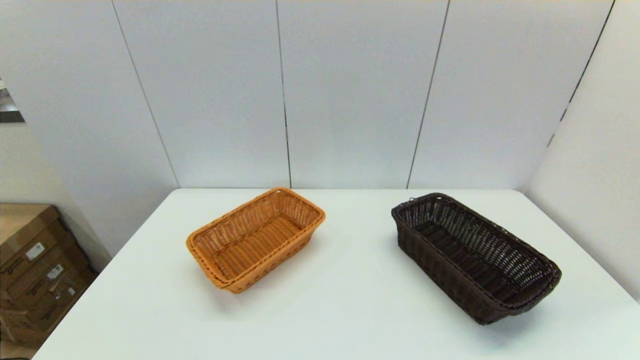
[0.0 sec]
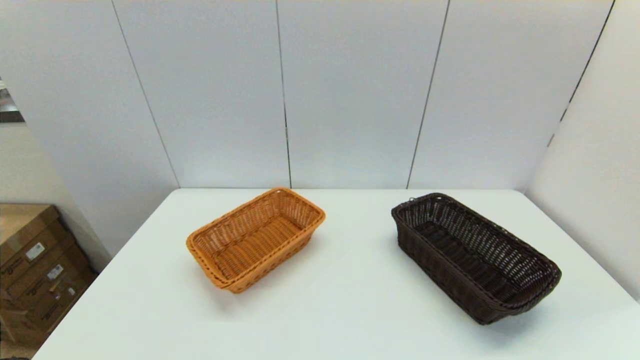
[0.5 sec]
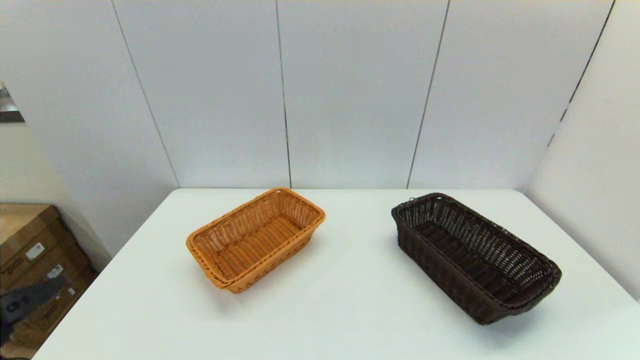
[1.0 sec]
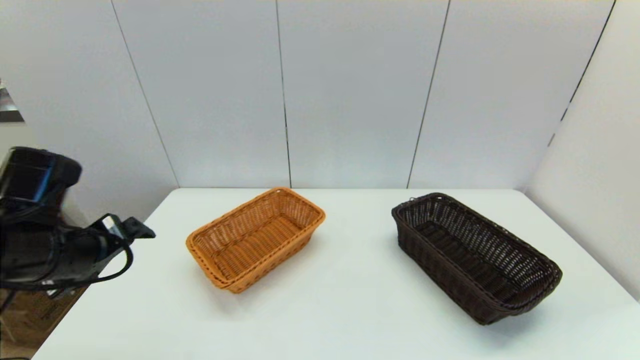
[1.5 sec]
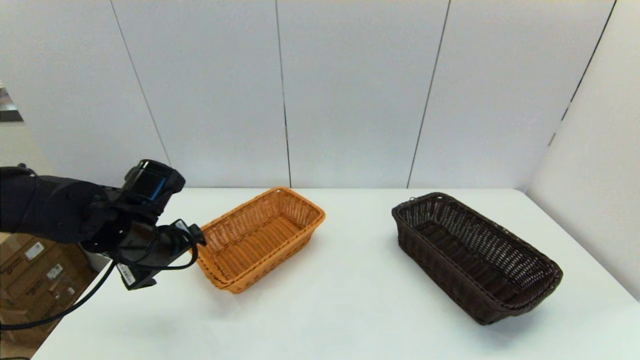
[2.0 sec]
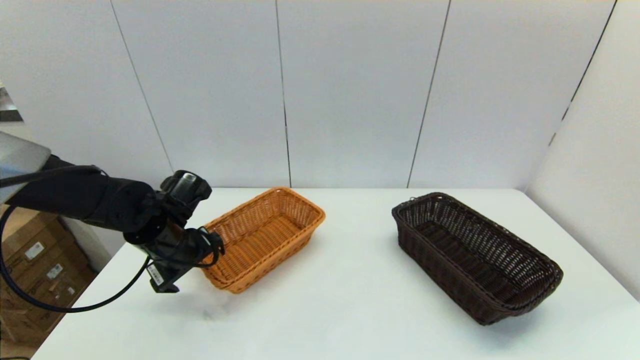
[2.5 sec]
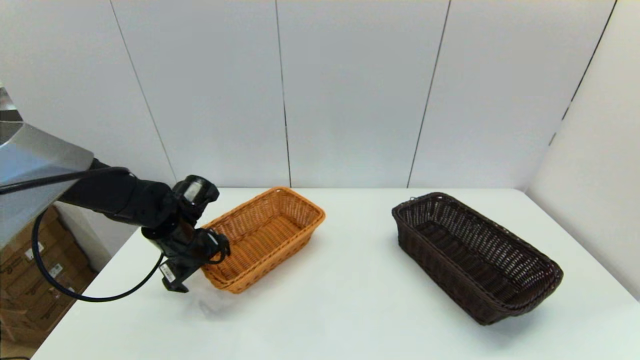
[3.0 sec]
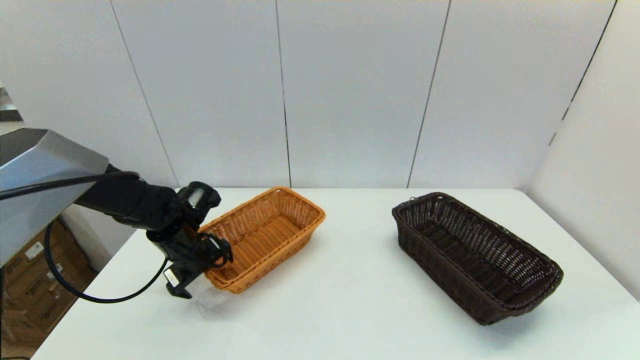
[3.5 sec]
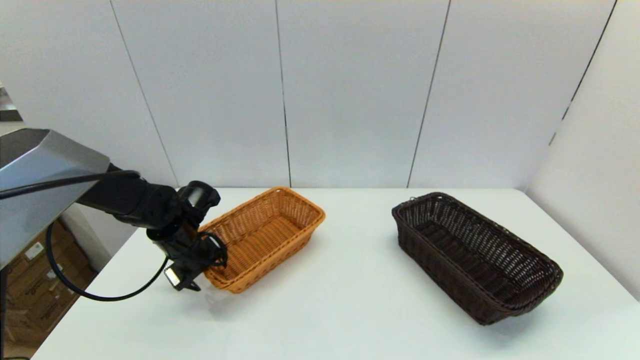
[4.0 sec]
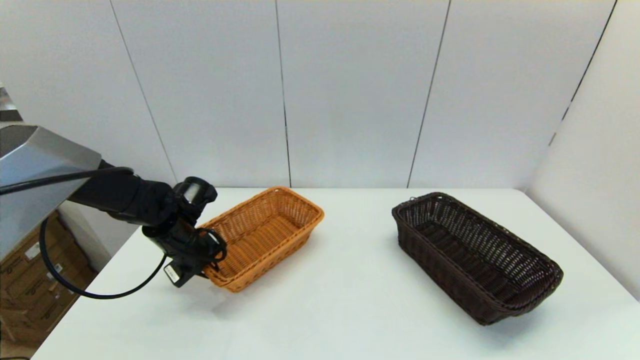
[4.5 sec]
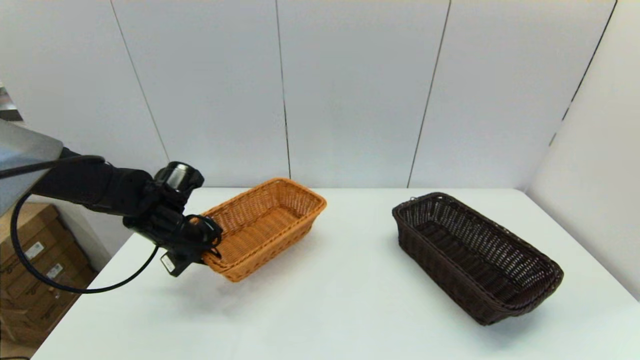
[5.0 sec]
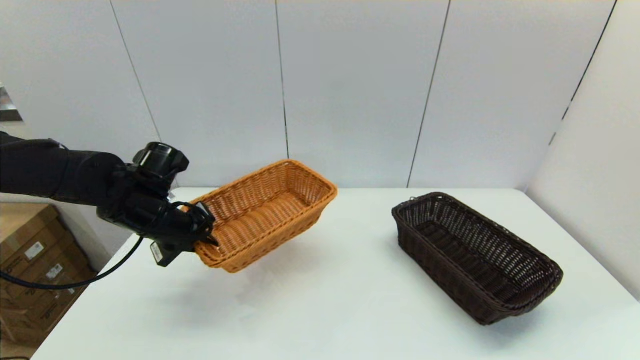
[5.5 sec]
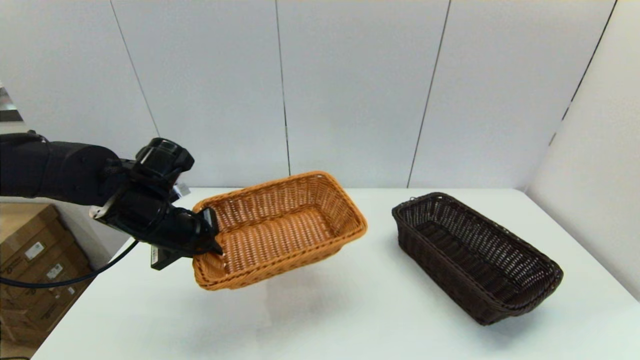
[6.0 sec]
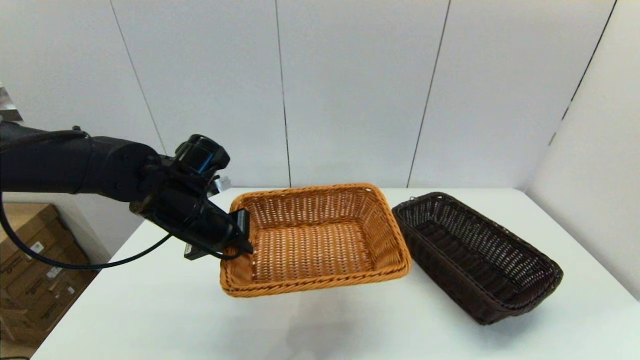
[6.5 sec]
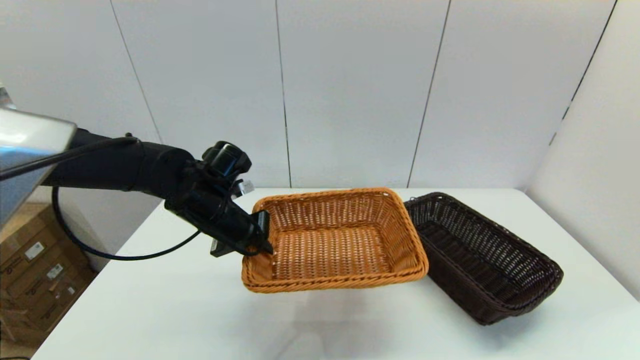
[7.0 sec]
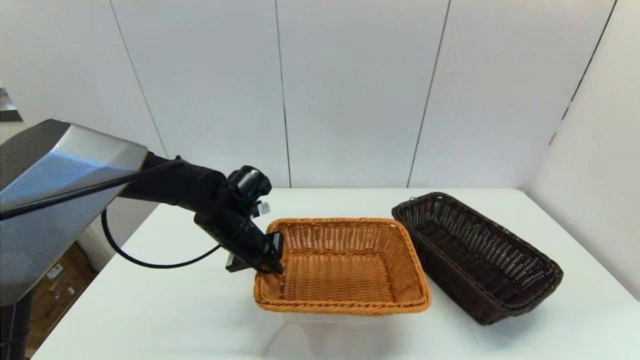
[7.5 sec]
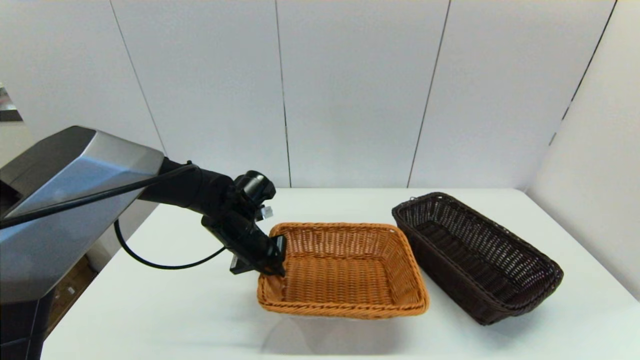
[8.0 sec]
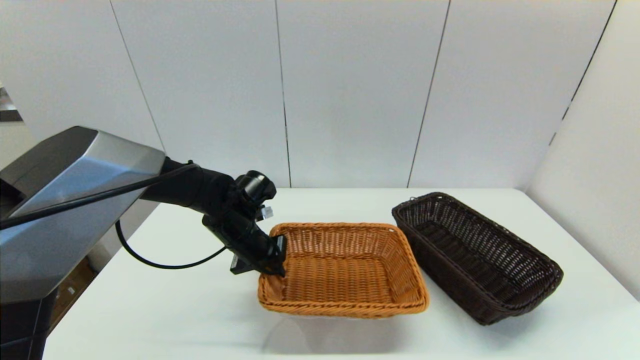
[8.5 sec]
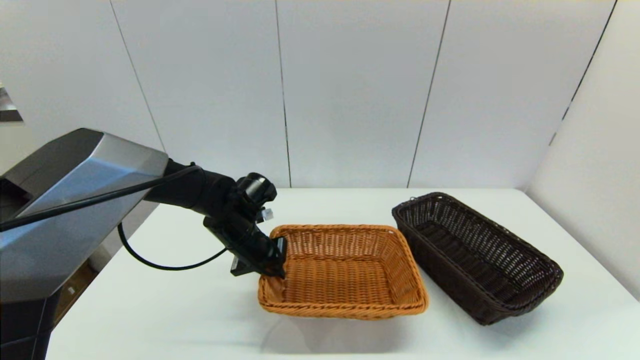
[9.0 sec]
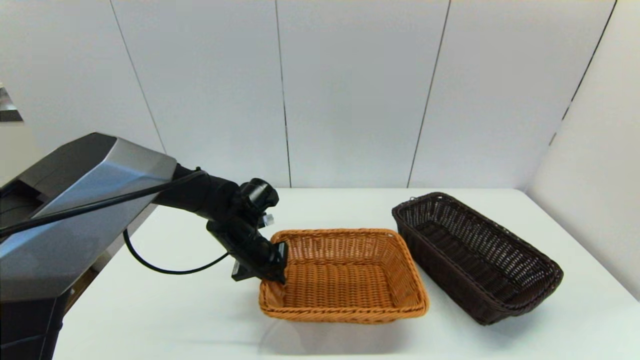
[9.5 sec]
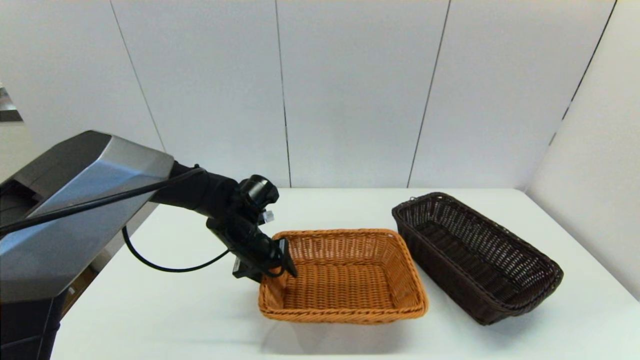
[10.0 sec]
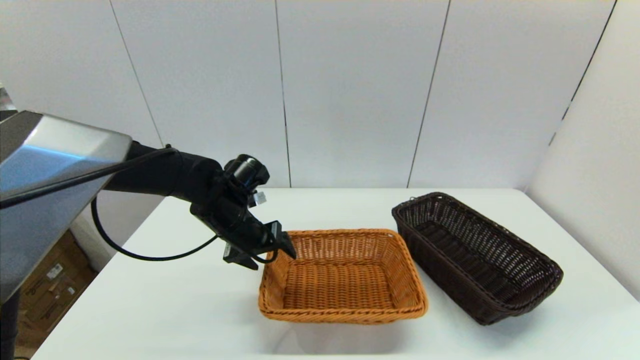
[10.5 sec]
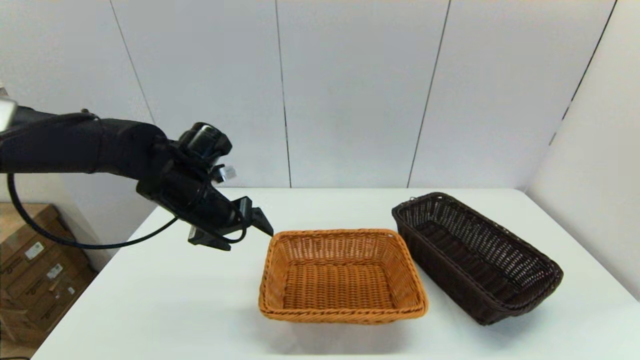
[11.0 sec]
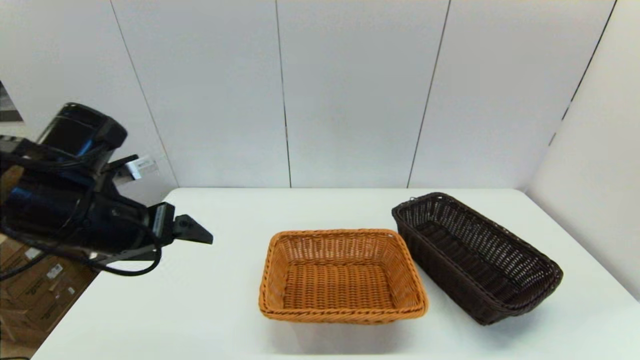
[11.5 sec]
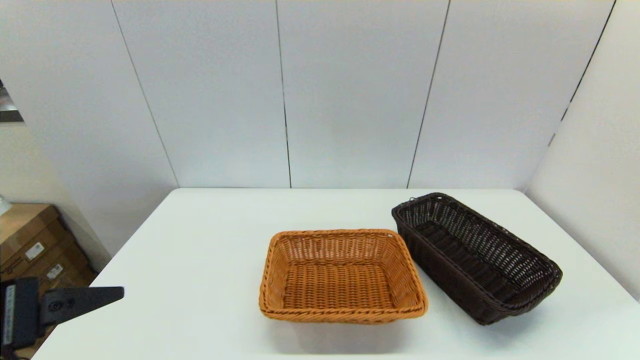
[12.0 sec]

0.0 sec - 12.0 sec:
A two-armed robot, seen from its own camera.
Task of the whole recording: stack a basket on top of another basket.
Step, 0.0 sec - 4.0 sec: Grasp the light basket with the left gripper.
Step, 4.5 sec - 10.5 sec: Place the light basket on the middle of the table with the left gripper.
0.0 sec - 2.0 sec: The left gripper shifts some 30 cm forward.
2.0 sec - 4.0 sec: The left gripper is displaced downward and forward by roughly 10 cm, and closes up.
4.0 sec - 6.0 sec: The left gripper travels upward and backward by about 10 cm, and closes up.
6.0 sec - 8.0 sec: The left gripper goes some 15 cm to the right, downward and forward.
8.0 sec - 10.0 sec: The left gripper opens.
10.0 sec - 12.0 sec: The left gripper shifts some 35 cm backward, upward and to the left, and opens up.

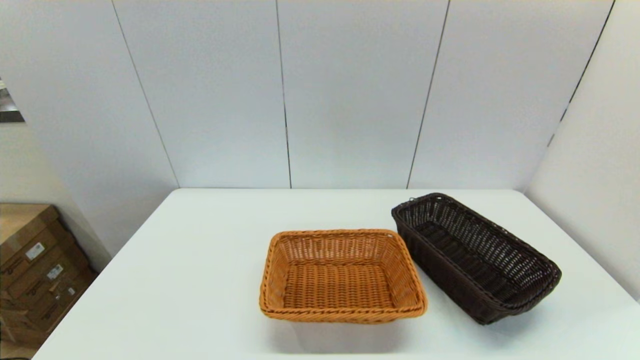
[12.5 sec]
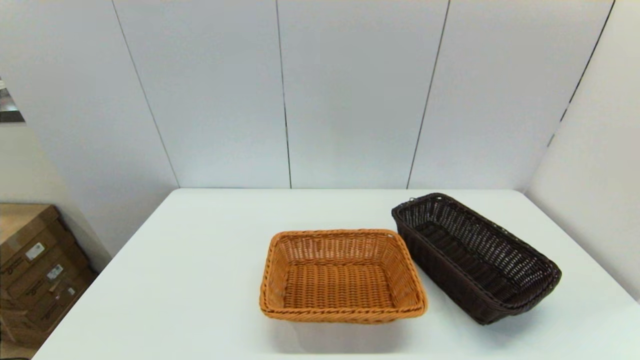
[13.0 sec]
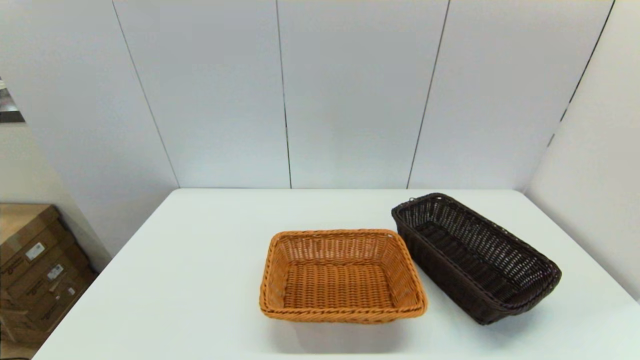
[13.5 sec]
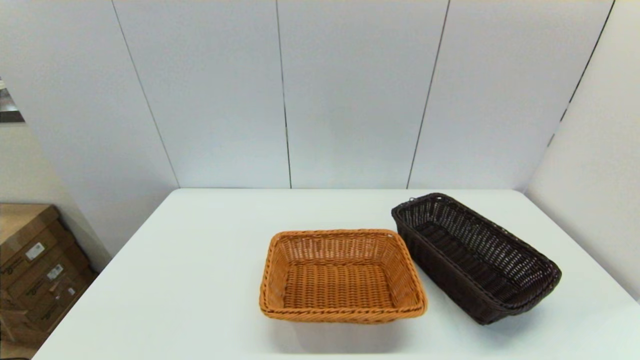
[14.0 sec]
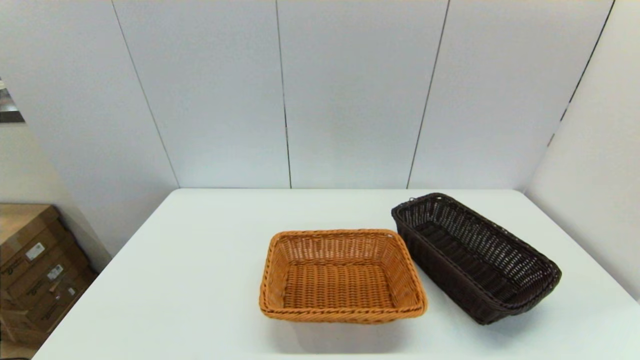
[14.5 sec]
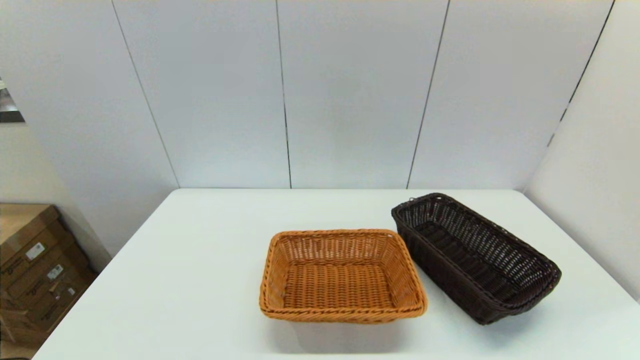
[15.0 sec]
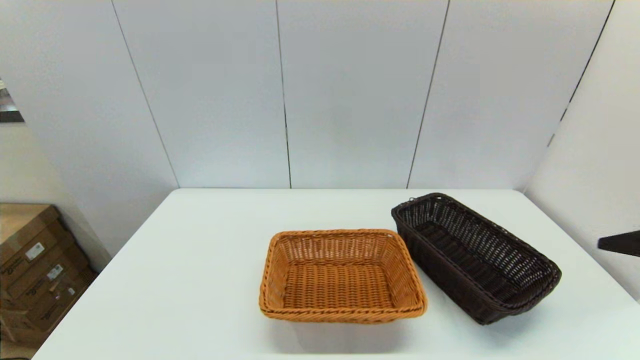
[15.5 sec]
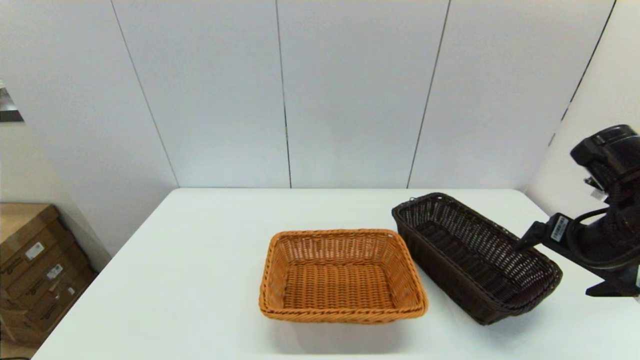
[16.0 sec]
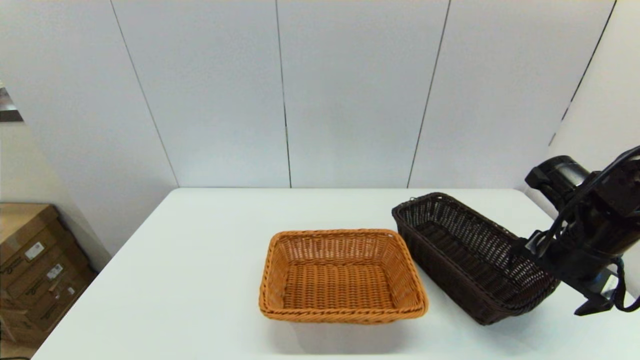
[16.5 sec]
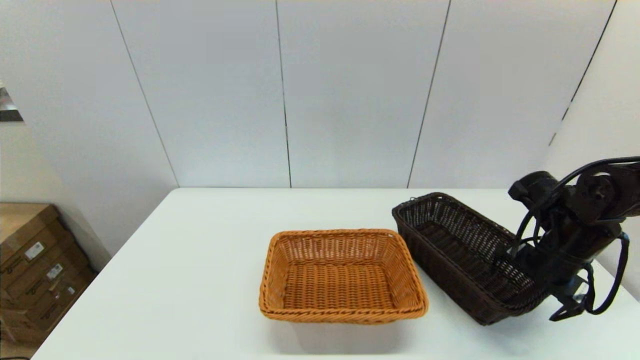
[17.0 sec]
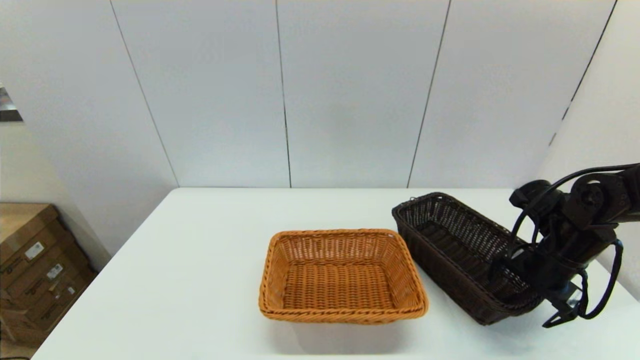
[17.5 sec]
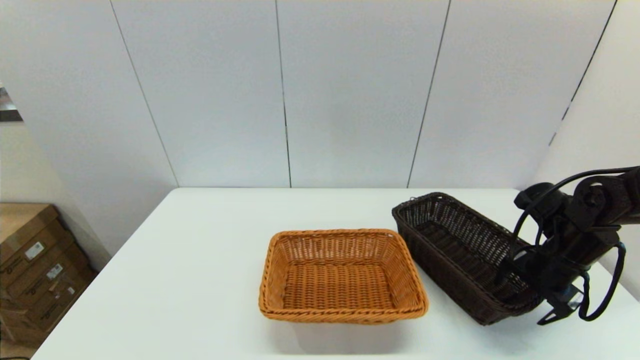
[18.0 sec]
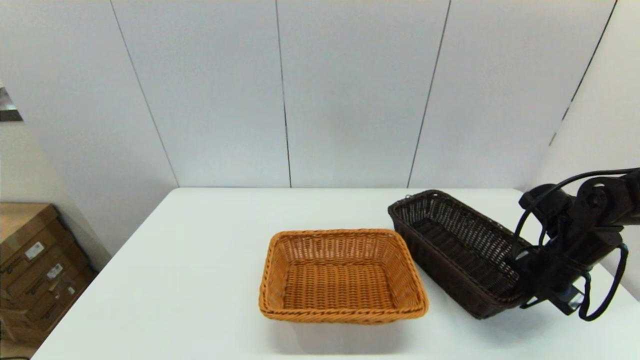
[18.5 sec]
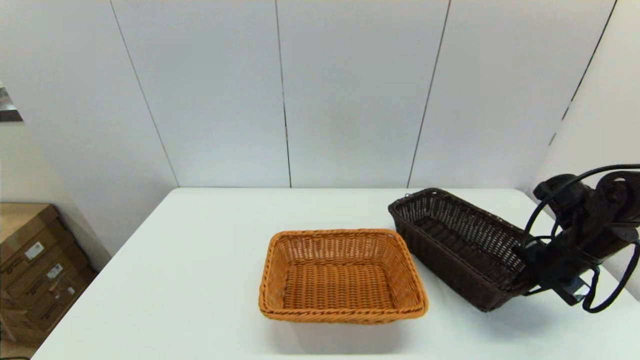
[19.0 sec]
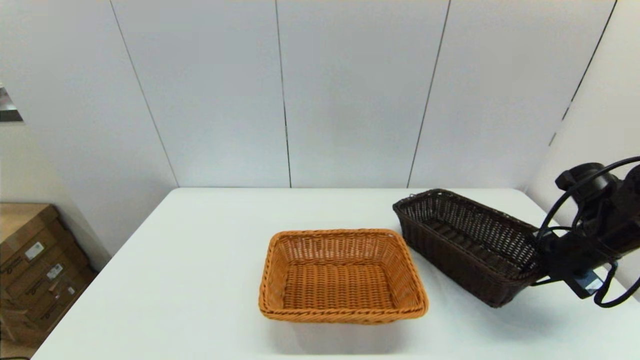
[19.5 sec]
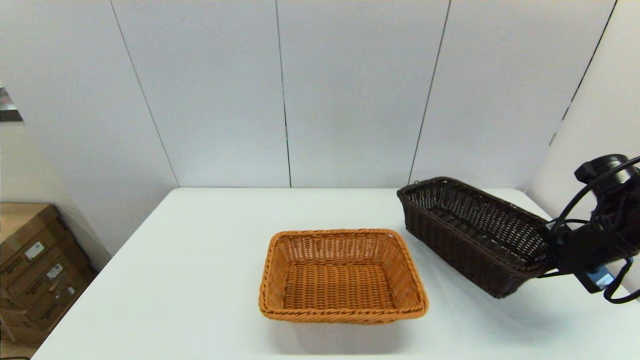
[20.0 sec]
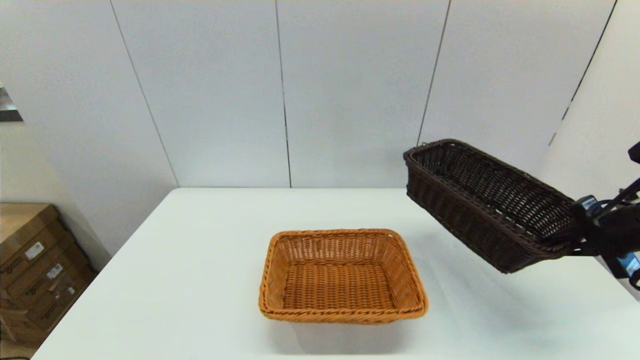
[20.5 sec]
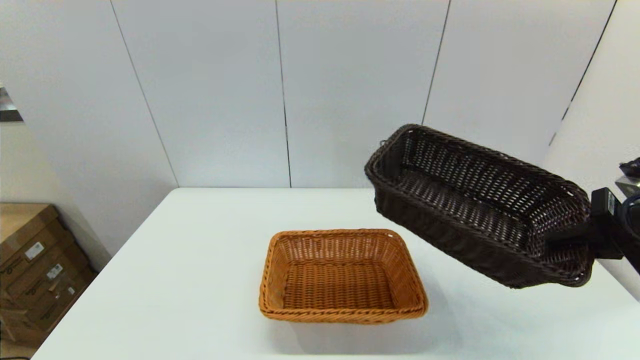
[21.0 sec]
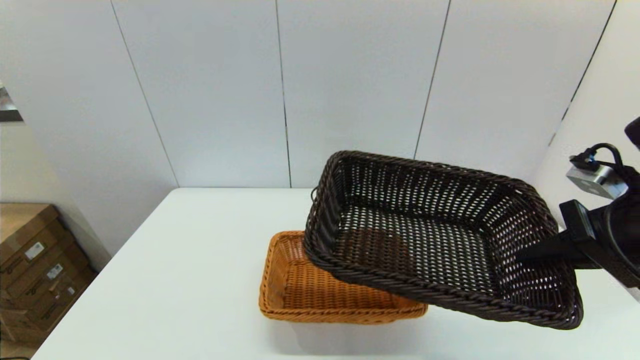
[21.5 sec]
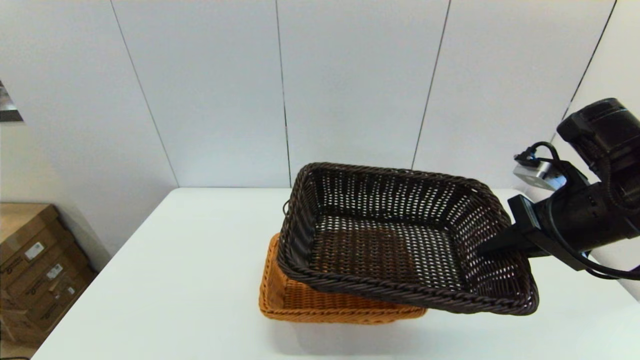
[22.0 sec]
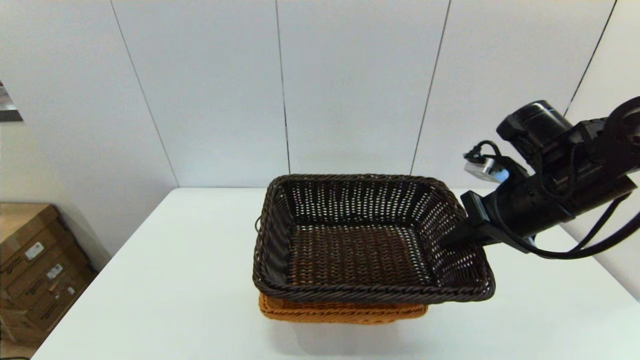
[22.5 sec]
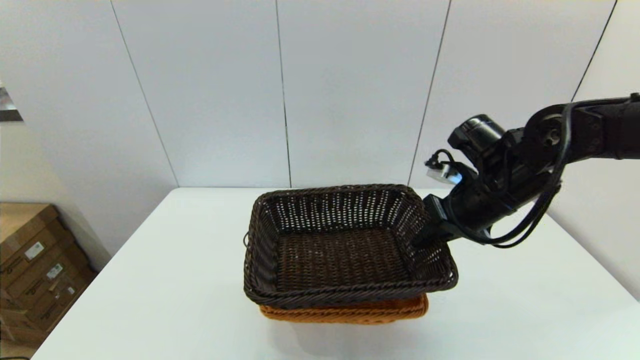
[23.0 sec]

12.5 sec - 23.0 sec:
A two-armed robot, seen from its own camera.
Task of the whole recording: stack a basket on top of another basket.
Step, 12.5 sec - 18.0 sec: Grasp the dark basket with the right gripper.
14.5 sec - 16.5 sec: The right gripper shifts approximately 30 cm forward.
16.5 sec - 19.0 sec: The right gripper changes place by about 5 cm, and closes up.
19.0 sec - 21.0 sec: The right gripper is displaced upward and backward by approximately 15 cm.
21.0 sec - 23.0 sec: The right gripper goes about 20 cm to the left and forward.
